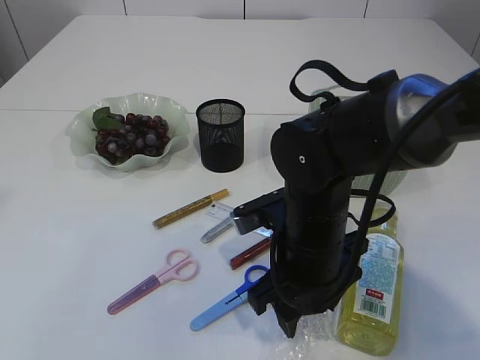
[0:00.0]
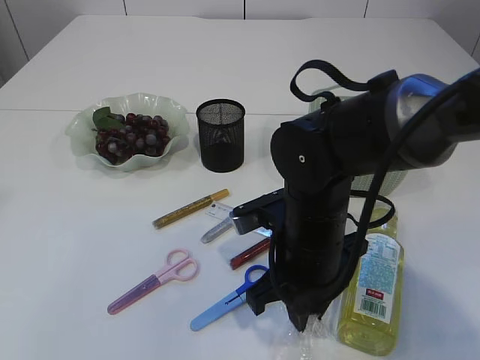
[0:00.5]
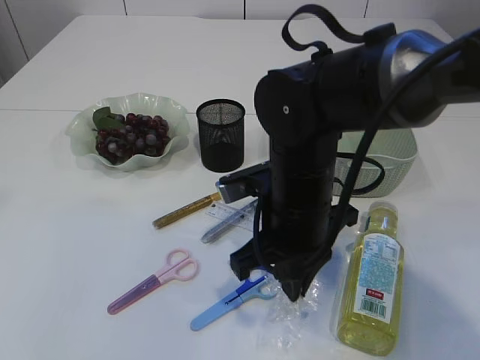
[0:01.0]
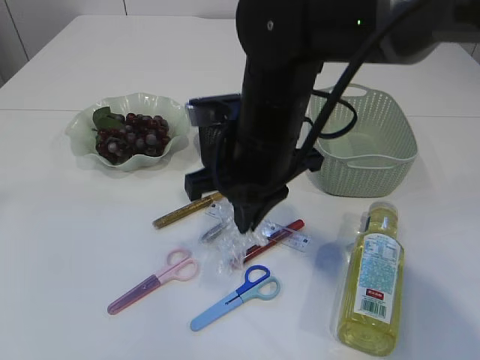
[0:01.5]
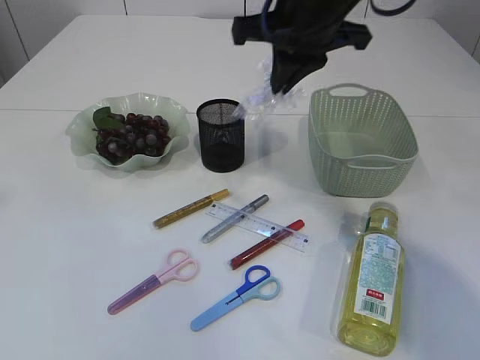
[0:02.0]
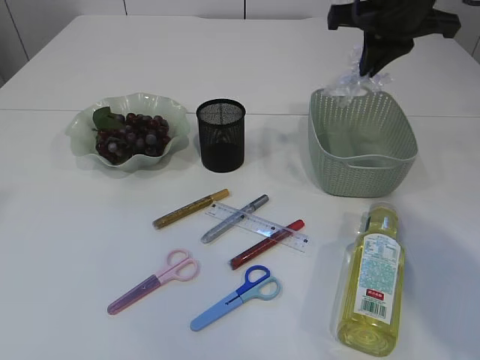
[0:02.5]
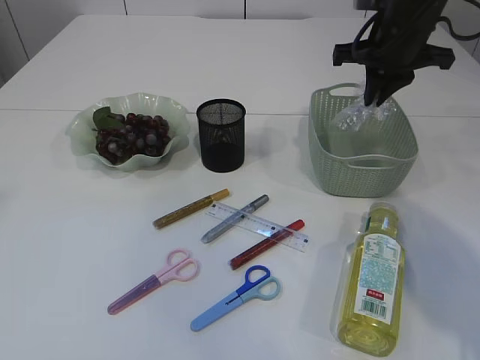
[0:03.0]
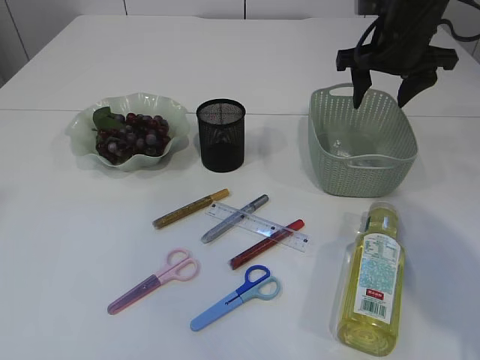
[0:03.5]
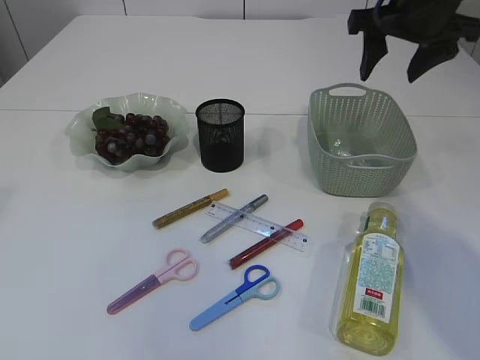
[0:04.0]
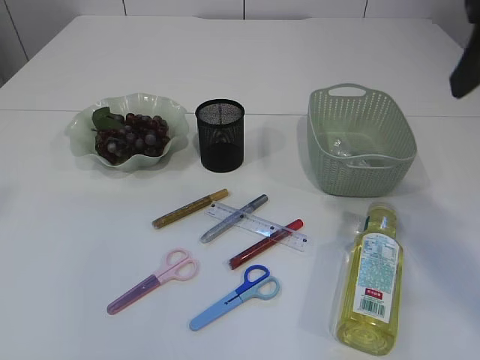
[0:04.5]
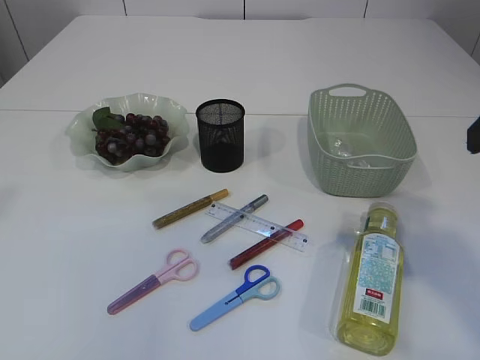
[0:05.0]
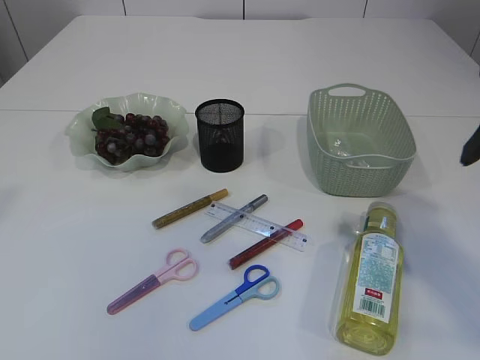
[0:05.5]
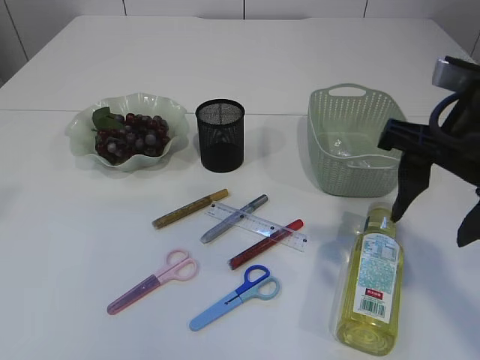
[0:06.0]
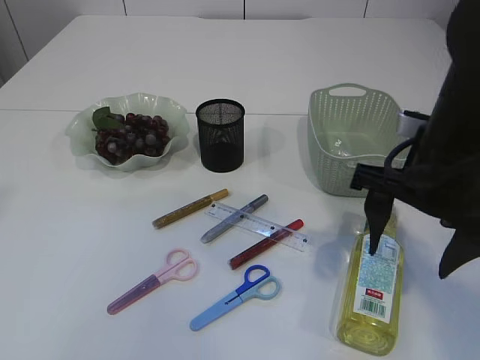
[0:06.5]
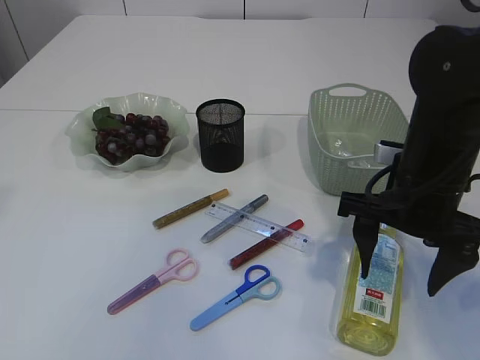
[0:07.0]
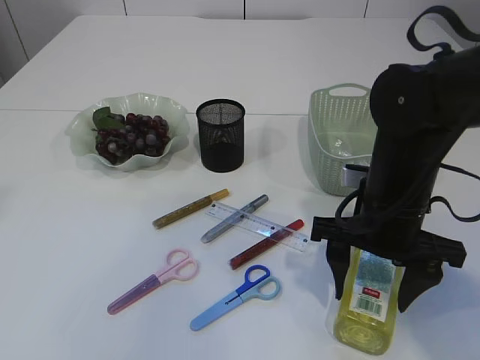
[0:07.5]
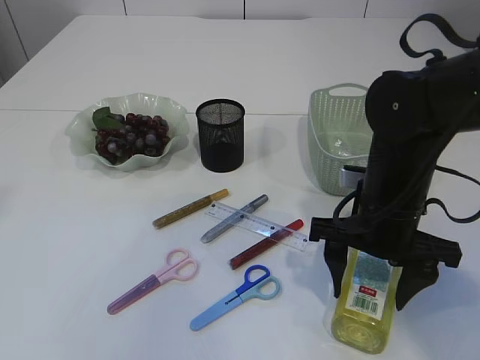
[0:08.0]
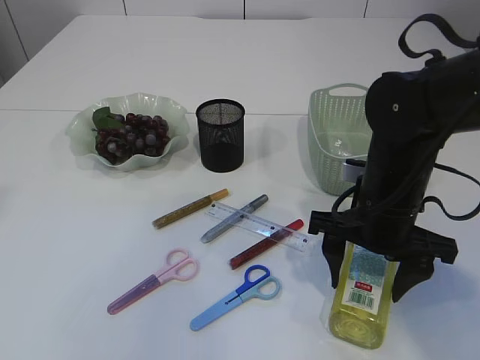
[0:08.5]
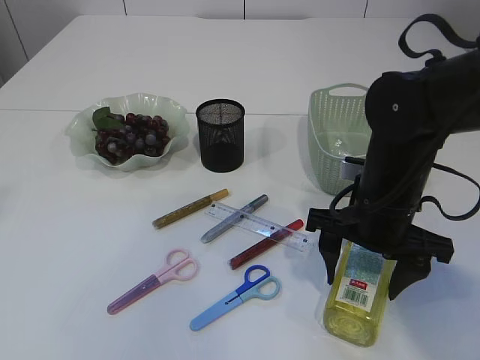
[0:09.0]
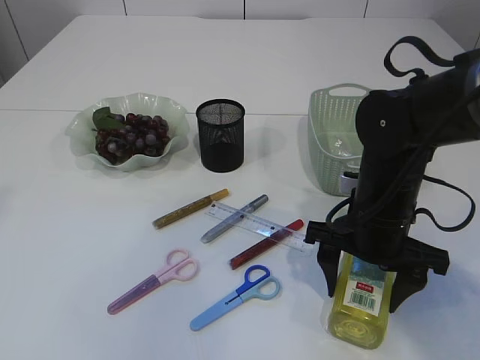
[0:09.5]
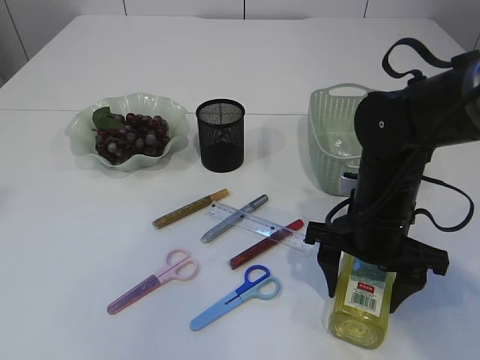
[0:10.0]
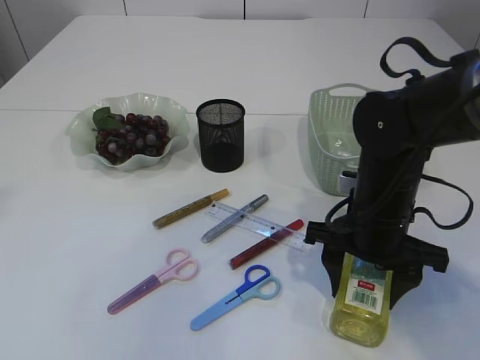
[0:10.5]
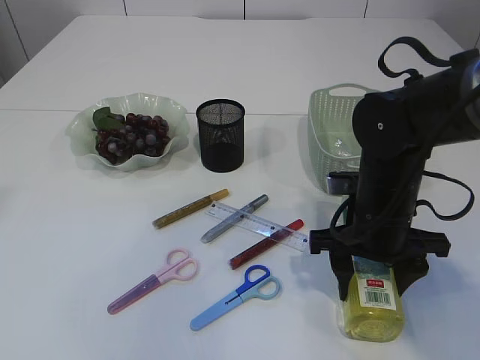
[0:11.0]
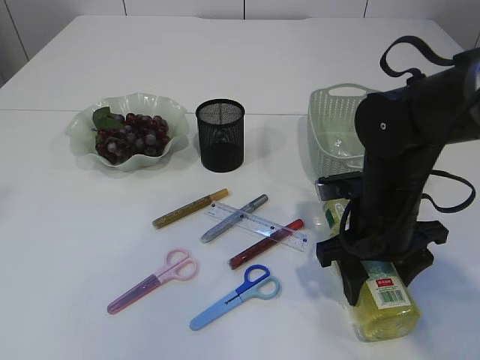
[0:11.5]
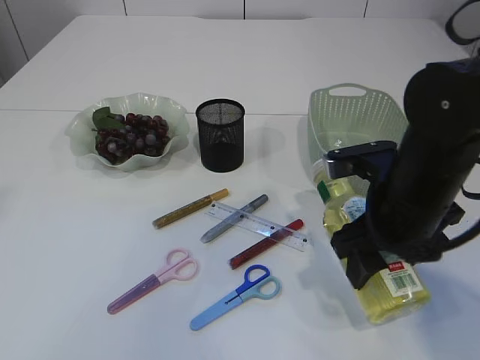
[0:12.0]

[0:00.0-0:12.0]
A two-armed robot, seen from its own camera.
Step, 0:01.5 to 0:03.5: Place the plastic in the basket.
0:00.0 to 0:02.0: The right gripper moves upward and forward, about 20 cm, and closes up.
0:02.0 to 0:04.0: The right gripper goes some 15 cm to the right, and opens up.
0:04.0 to 0:06.0: The right gripper is displaced backward by roughly 15 cm.
0:06.0 to 0:08.0: The right gripper is displaced downward by some 15 cm.
0:08.0 to 0:10.0: The grippers stay close to where they were, moving slightly.
0:10.0 to 0:12.0: The right gripper moves some 5 cm.

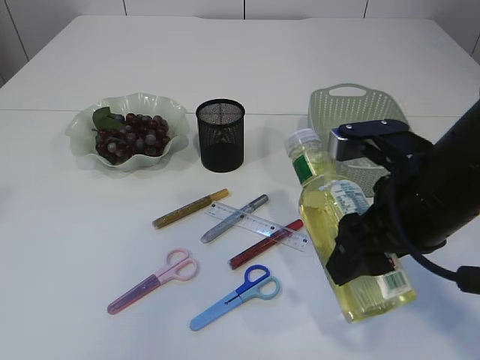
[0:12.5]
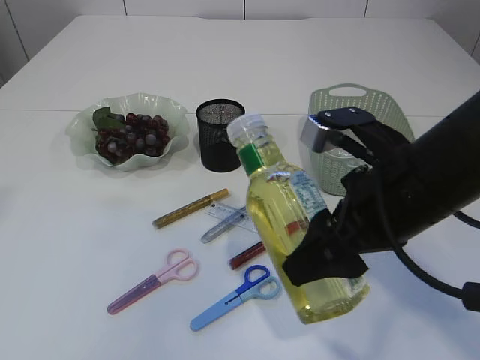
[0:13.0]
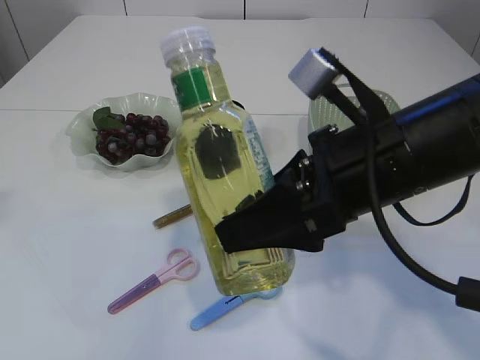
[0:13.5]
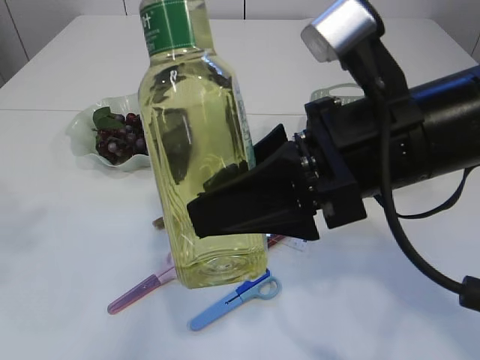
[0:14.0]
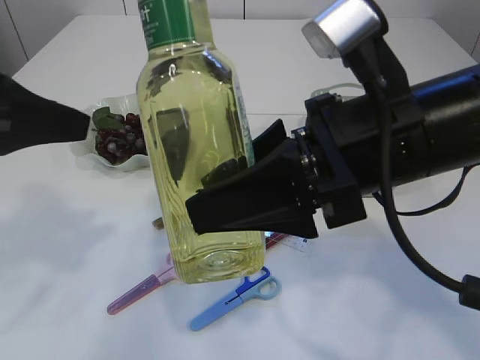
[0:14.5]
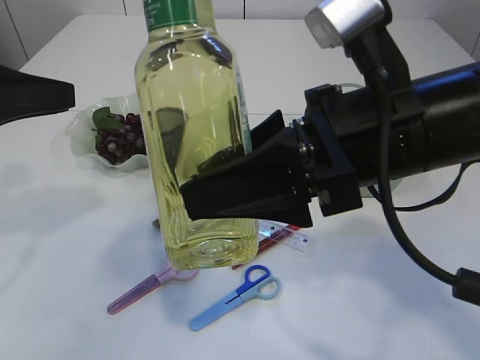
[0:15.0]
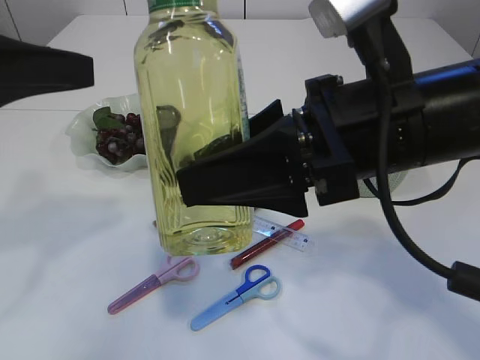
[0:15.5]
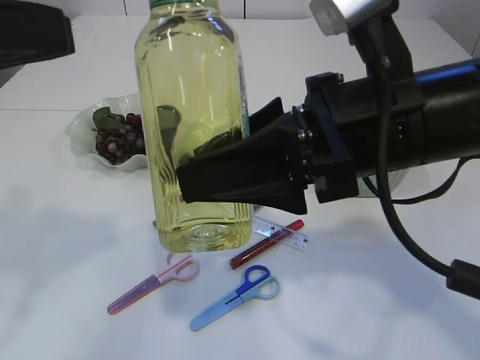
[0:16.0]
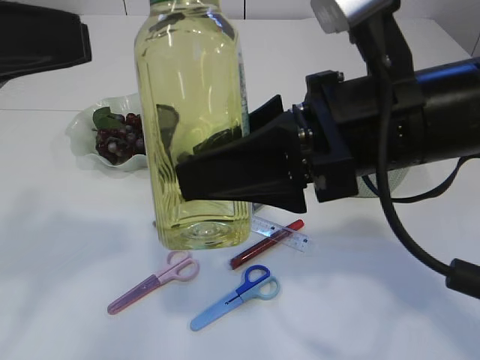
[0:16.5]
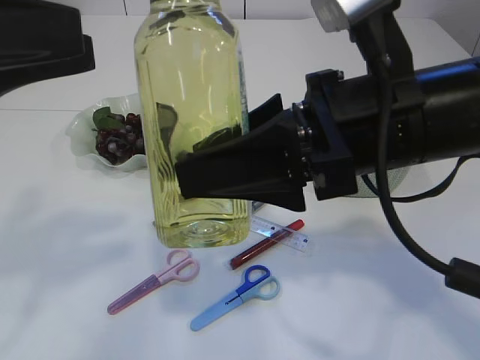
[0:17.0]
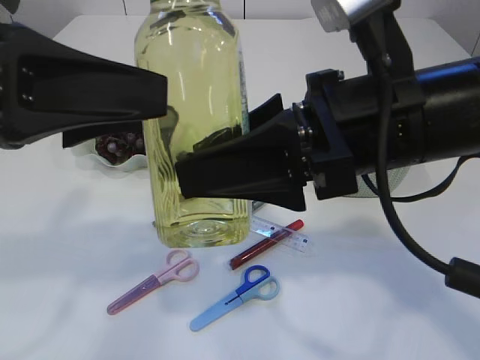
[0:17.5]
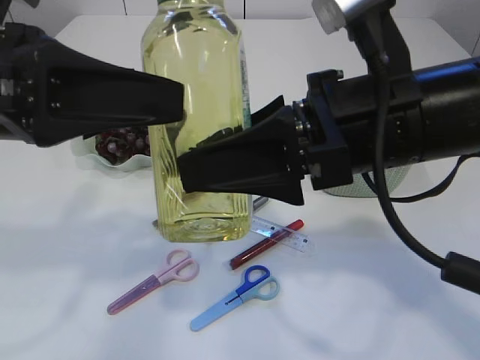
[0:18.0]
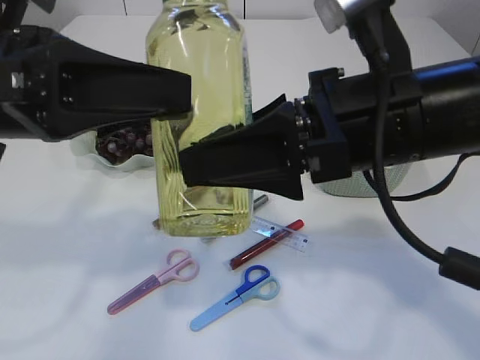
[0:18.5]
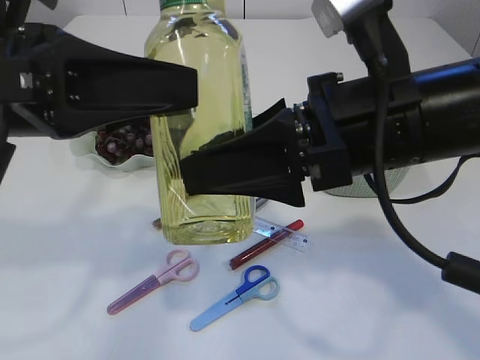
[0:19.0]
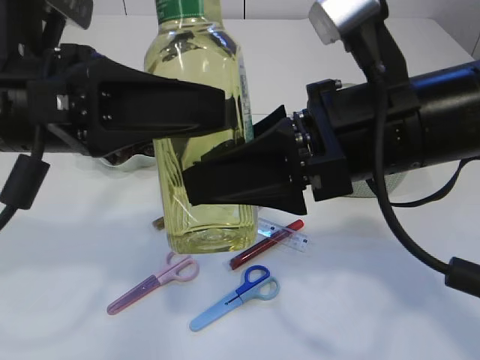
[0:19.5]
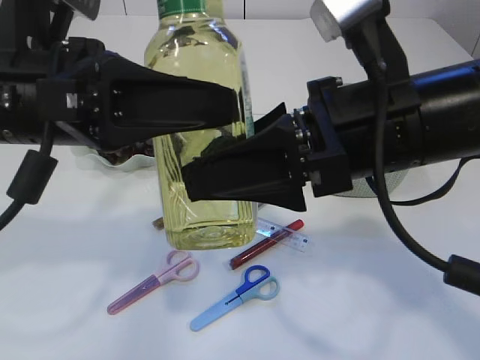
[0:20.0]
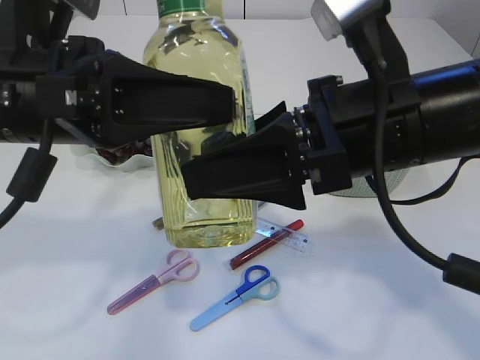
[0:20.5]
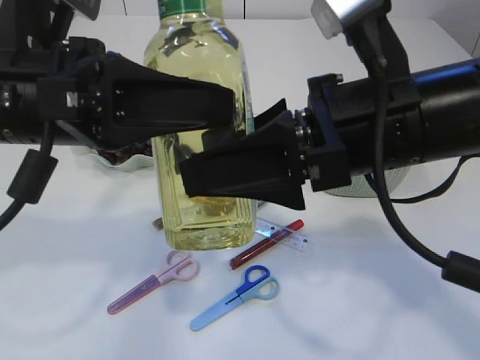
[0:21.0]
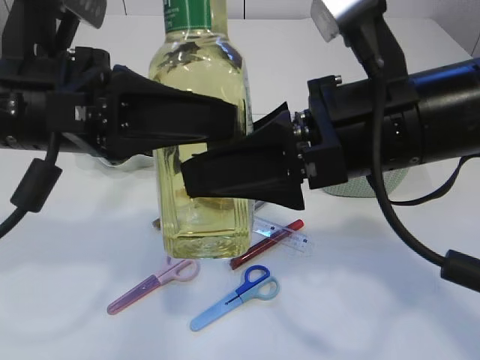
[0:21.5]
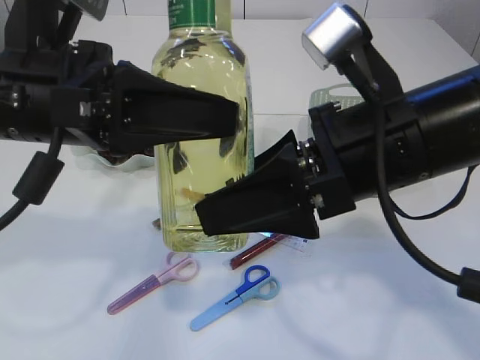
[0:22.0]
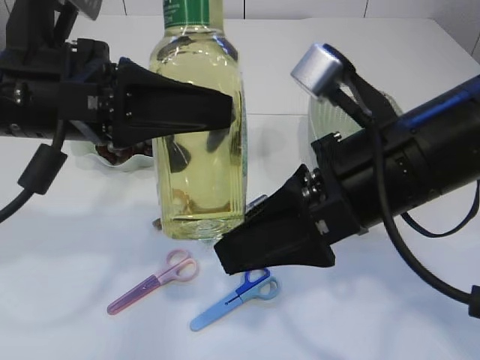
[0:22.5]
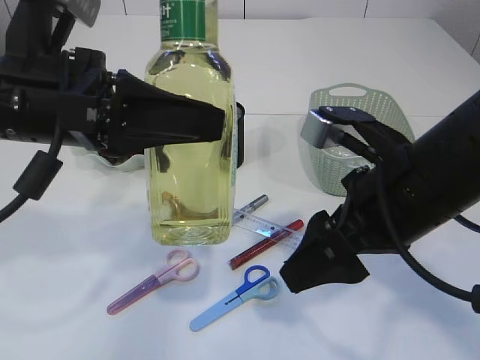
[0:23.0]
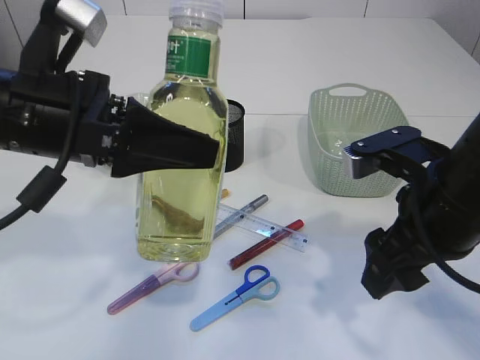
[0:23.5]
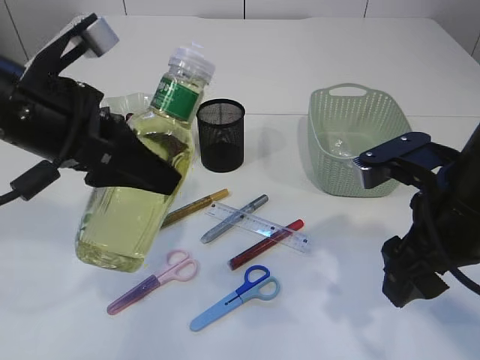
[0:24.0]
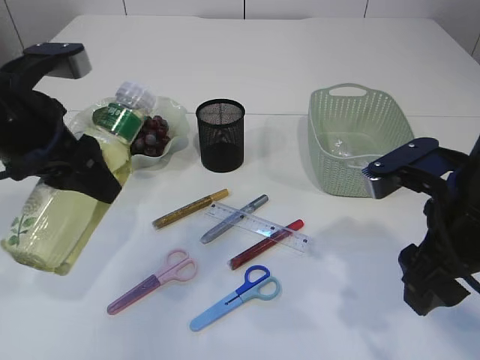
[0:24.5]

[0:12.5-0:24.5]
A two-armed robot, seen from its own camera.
Step, 0:12.5 to 0:23.0: transfer the bottle to the left arm.
0:12.5 to 0:14.5: The right gripper is displaced upward and to the left by approximately 10 cm. The left gripper heads downward, covering some 15 cm.
0:14.5 to 0:16.5: The left gripper travels forward and back again, about 5 cm each way.
0:16.5 to 0:18.5: The left gripper heads downward, covering approximately 5 cm, and opens.
0:18.5 to 0:20.5: The grippers make only small movements.
0:22.5 to 0:24.5: The left gripper heads to the left, covering roughly 5 cm; the right gripper heads to the right, covering roughly 10 cm.

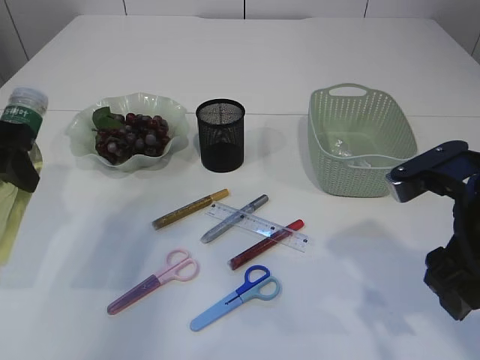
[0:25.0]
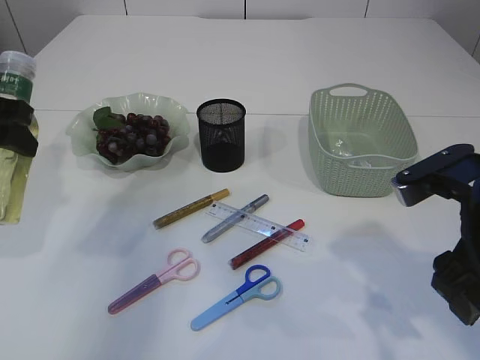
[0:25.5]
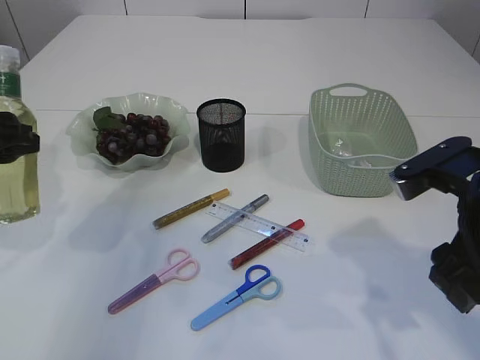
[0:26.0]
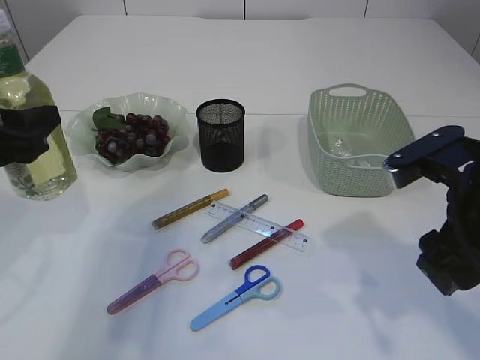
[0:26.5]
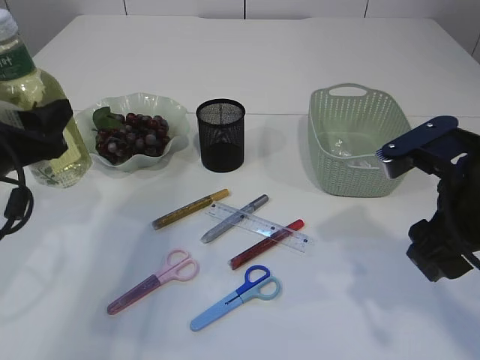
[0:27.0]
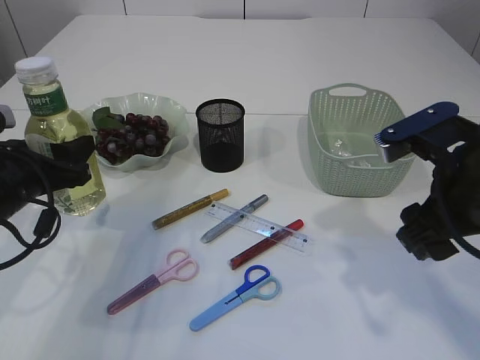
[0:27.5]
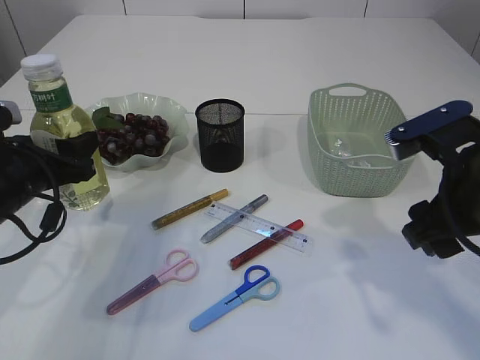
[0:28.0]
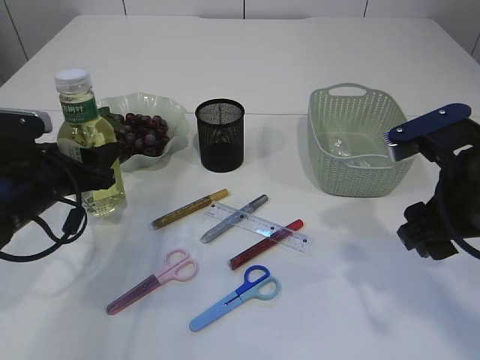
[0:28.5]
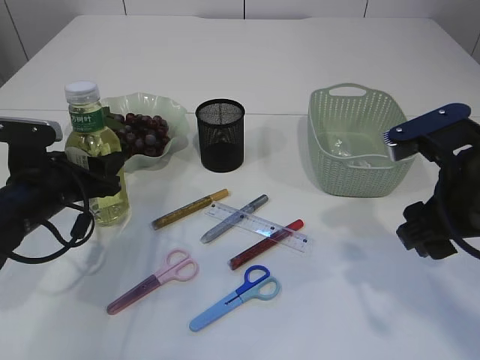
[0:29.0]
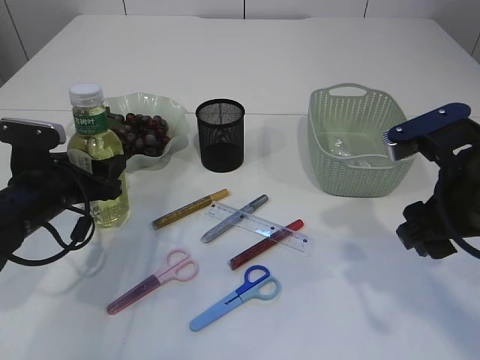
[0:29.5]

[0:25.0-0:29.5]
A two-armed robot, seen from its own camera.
0:25.0 to 0:27.0: The left gripper heads downward, covering approximately 5 cm.
0:27.0 to 0:29.5: The left gripper is displaced downward and forward by roughly 10 cm.